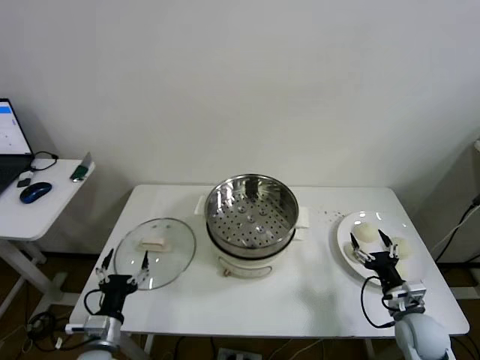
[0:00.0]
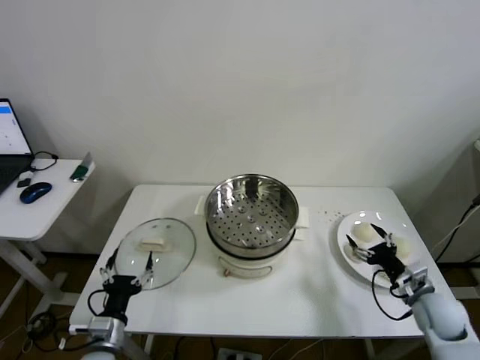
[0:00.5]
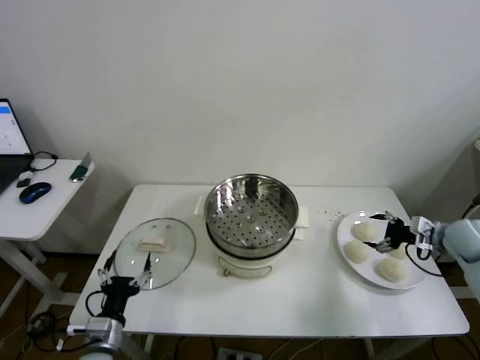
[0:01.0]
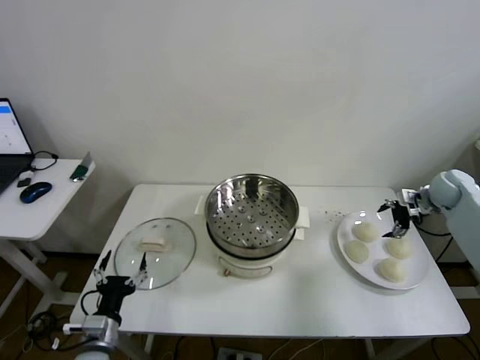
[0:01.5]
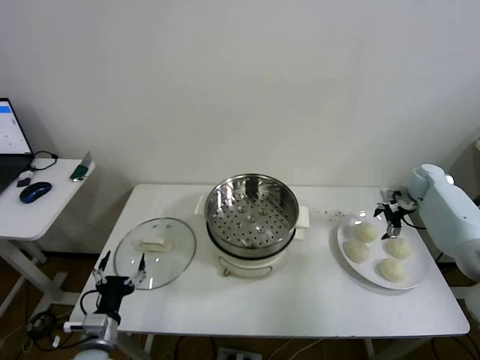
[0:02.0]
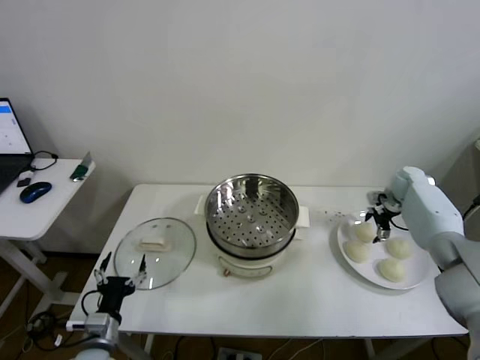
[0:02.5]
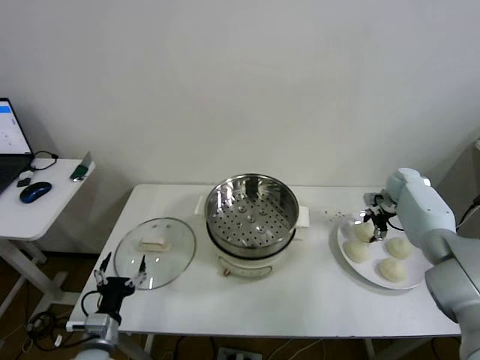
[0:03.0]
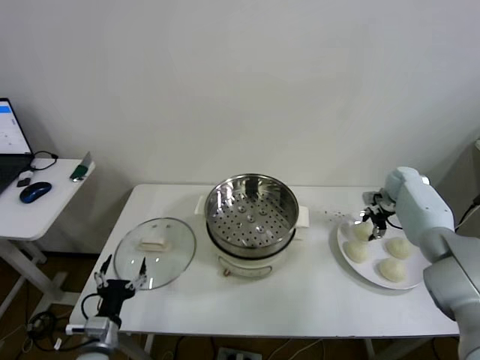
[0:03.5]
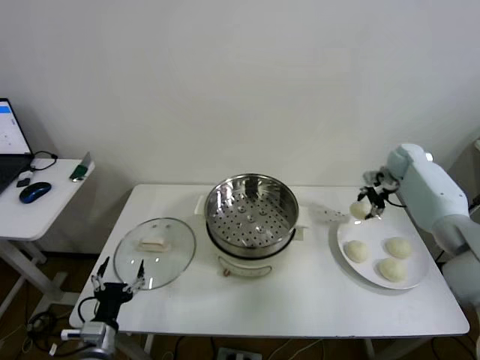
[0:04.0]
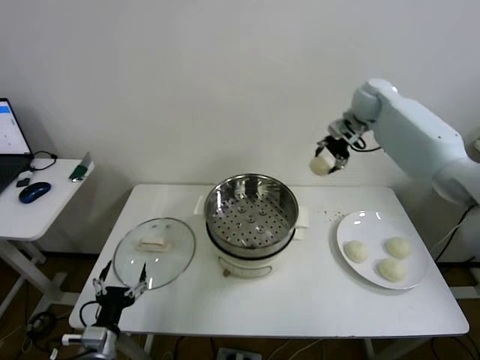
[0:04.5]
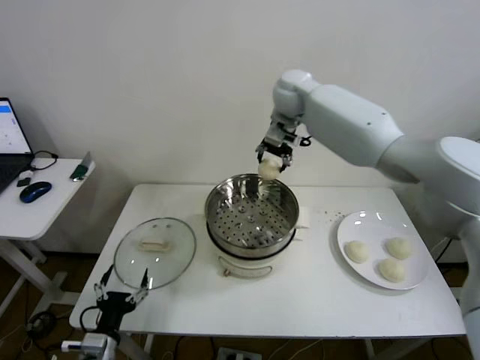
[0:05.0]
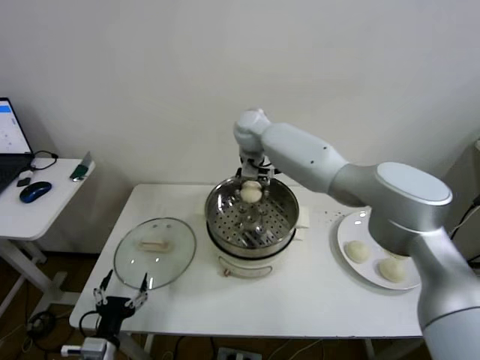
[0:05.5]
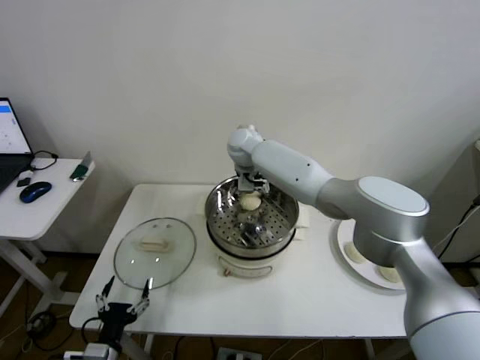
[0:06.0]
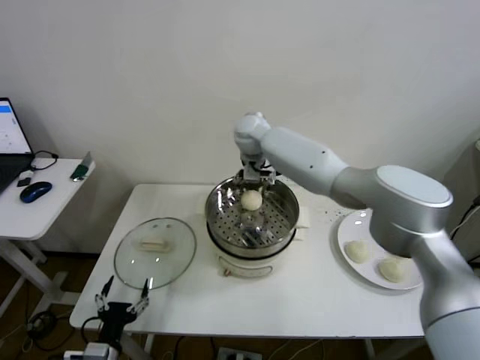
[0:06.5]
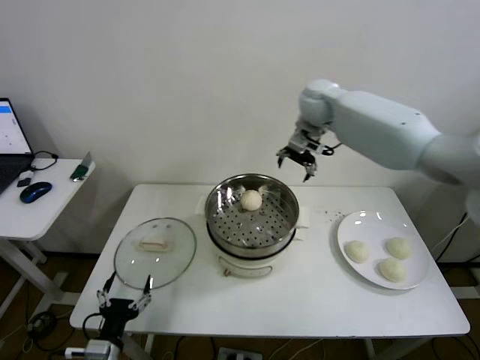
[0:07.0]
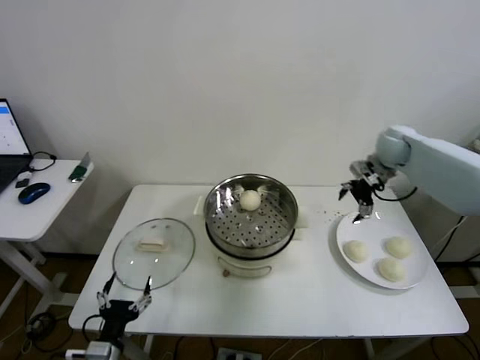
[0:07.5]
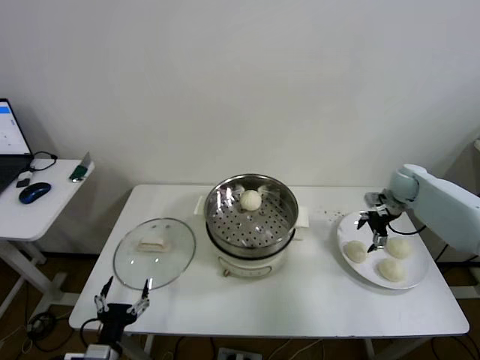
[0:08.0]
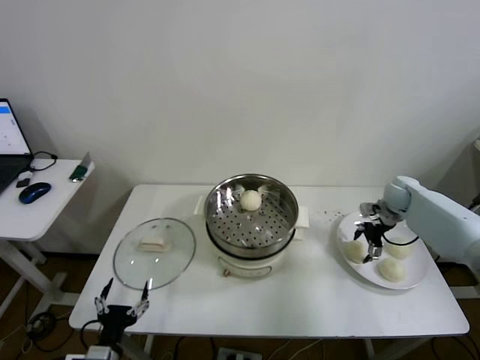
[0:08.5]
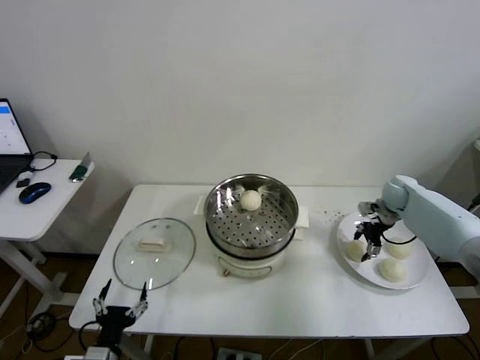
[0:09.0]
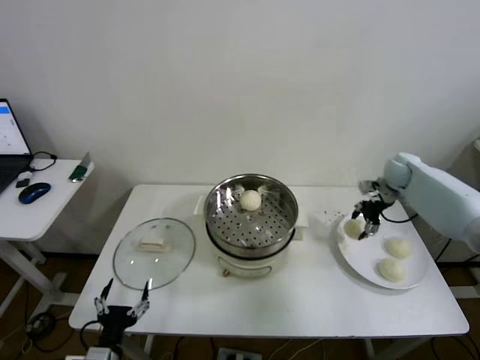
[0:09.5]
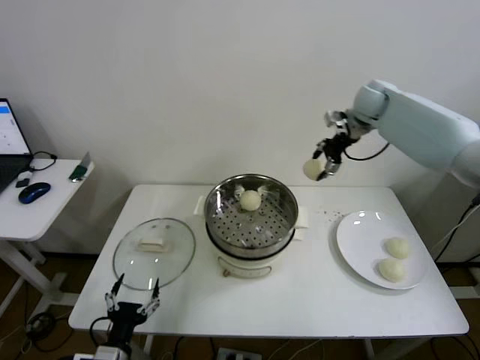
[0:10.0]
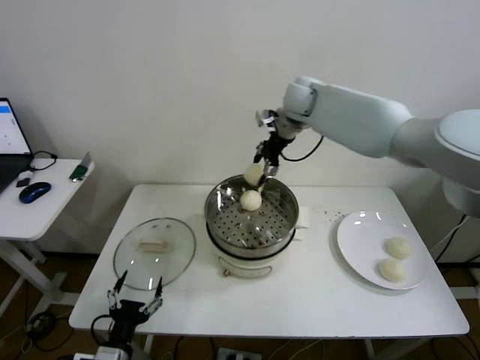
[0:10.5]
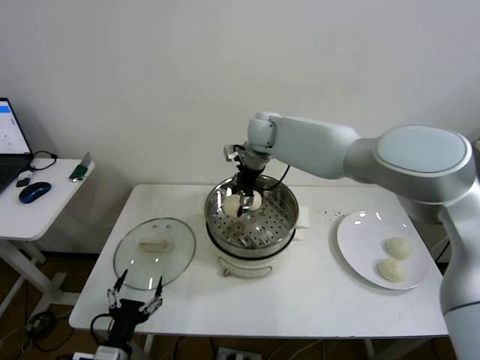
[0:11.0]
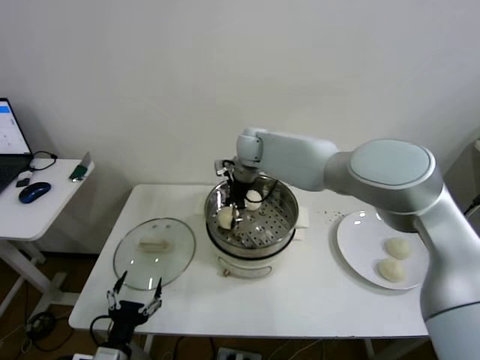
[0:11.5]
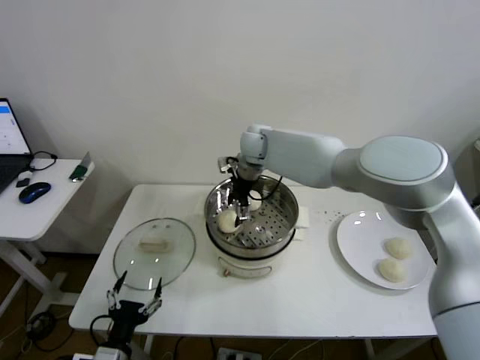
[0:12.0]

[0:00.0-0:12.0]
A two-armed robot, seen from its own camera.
Step, 0.0 to 3.0 s: Grasp the baozi in the plate with right gripper.
Step, 3.5 to 6.0 s: Place the baozi on the steamer with right gripper.
Step, 6.5 to 8.5 s: Grasp the baozi in the plate with right gripper.
Step, 9.0 to 11.5 s: Place the baozi on the steamer with right gripper.
2.0 to 4.0 s: The right gripper moves upward and to the left, roughly 10 cm, and closes up.
4.0 to 6.0 s: The right gripper moves to the left, approximately 40 cm, and opens.
6.0 to 8.0 s: The right gripper is displaced to the right by approximately 40 cm.
8.0 to 10.0 s: The right gripper is displaced upward and to the left by approximately 25 cm, and closes up.
10.0 to 12.0 s: The right gripper shifts about 25 cm to the left and downward, and opens its fingers.

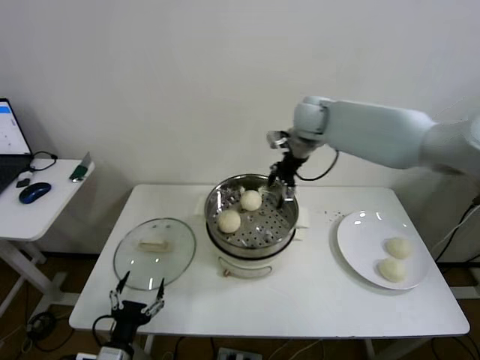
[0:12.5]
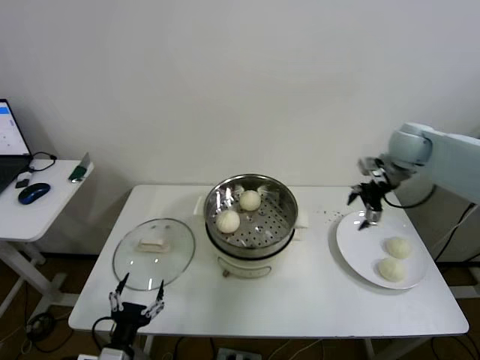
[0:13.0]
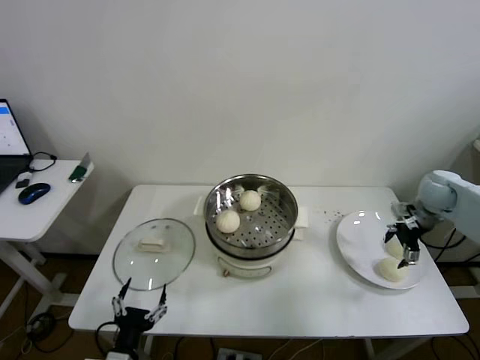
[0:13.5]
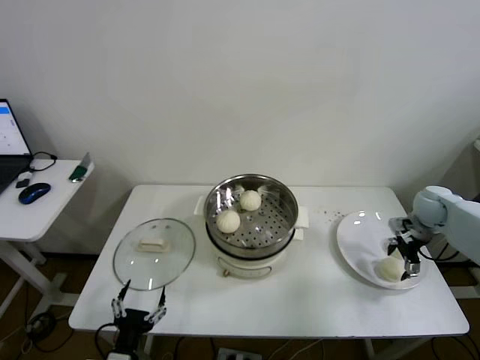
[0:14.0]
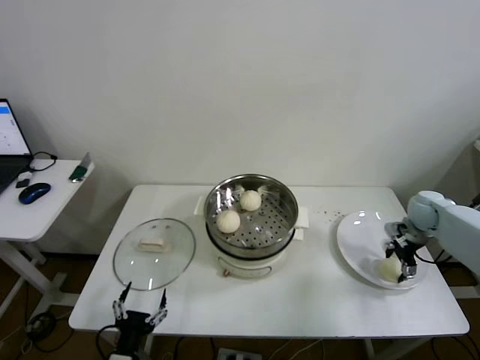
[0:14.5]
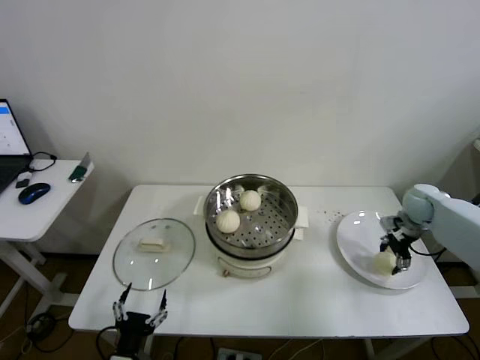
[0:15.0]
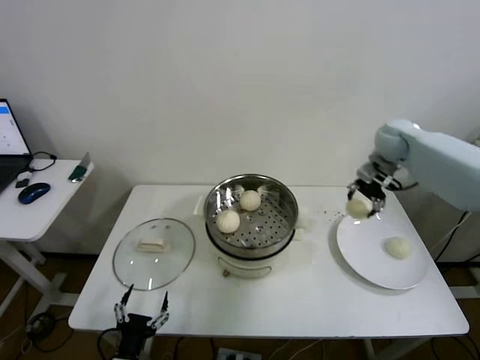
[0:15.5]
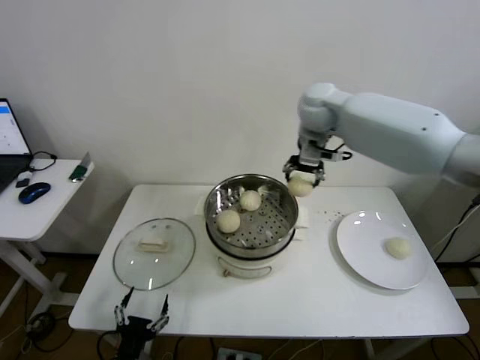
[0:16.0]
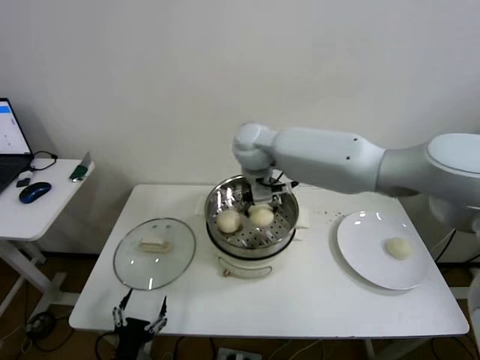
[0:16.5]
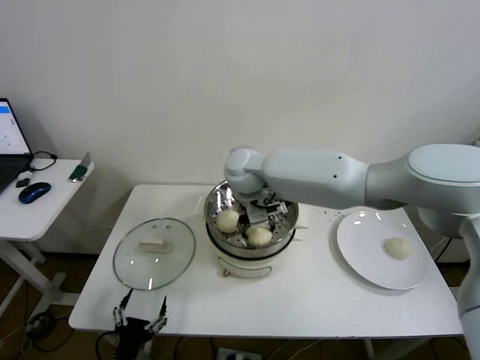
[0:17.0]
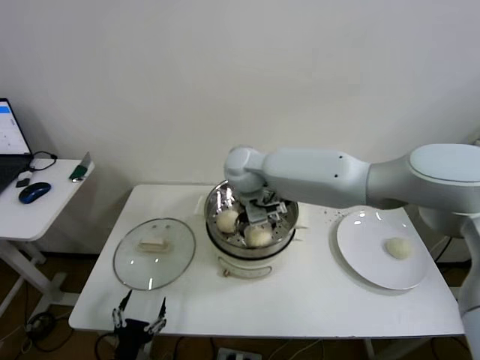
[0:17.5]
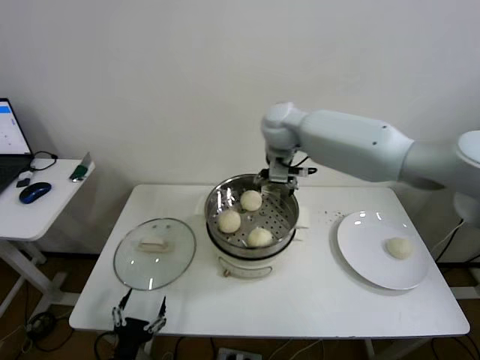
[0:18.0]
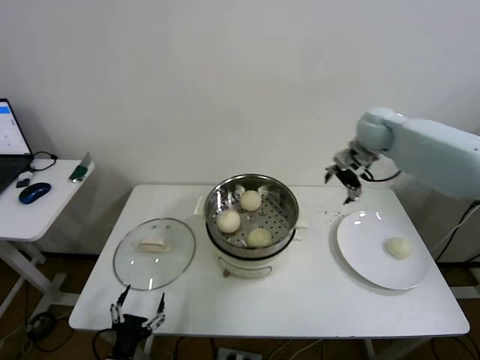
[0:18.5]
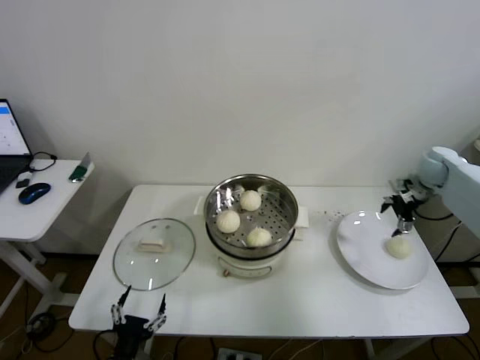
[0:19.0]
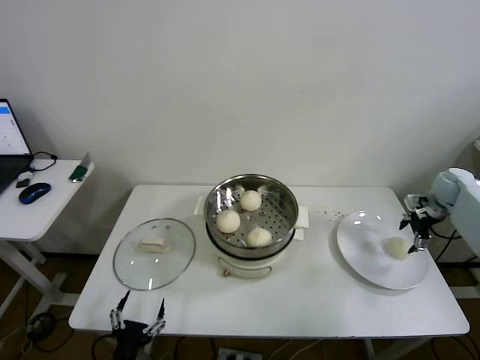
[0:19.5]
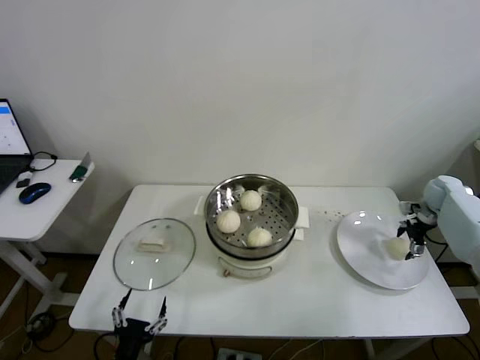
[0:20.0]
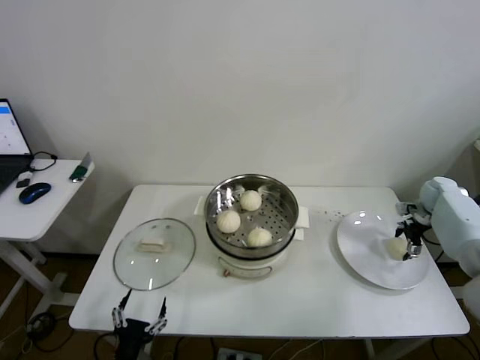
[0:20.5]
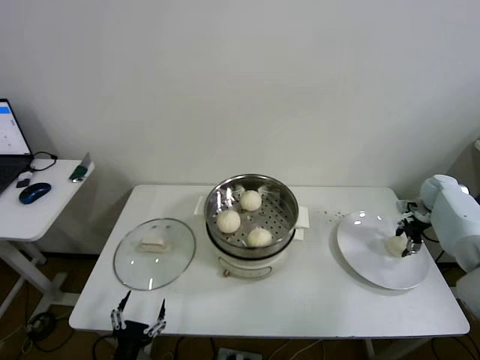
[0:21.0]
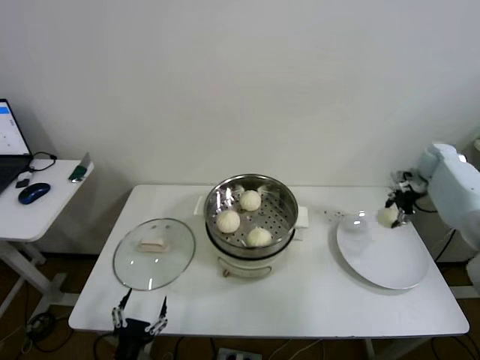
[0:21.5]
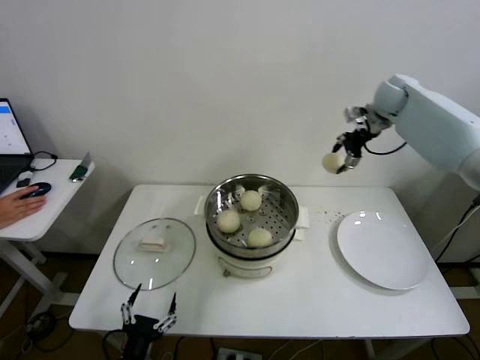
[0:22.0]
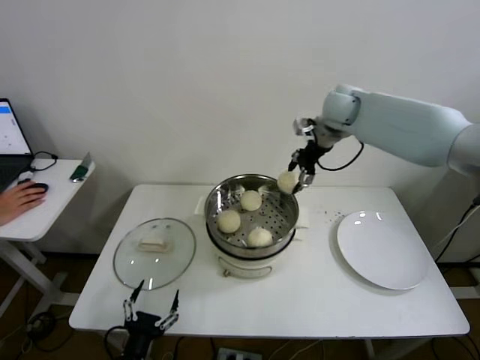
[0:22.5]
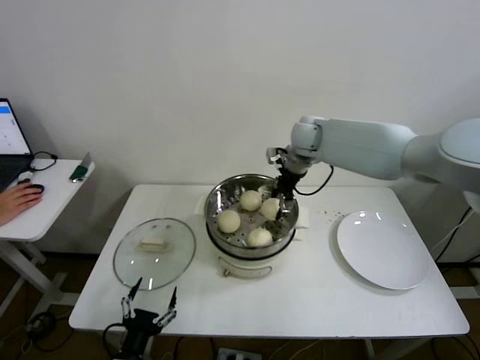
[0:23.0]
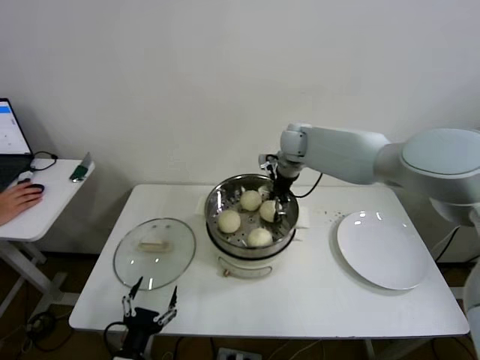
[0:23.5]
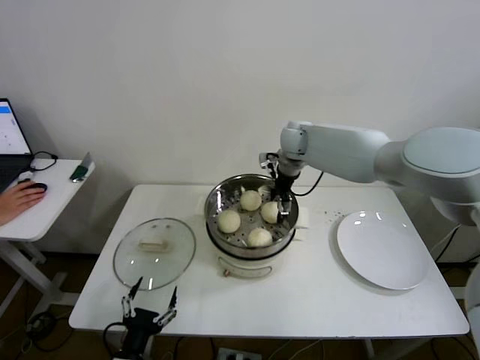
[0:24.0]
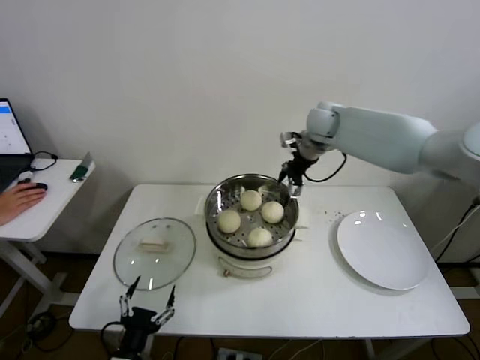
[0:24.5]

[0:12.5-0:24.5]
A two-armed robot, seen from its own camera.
Step, 12.5 to 14.5 s: Grasp the baozi in the plate with right gripper.
Step, 15.0 to 17.0 s: Place the baozi on the steamer with right gripper.
Step, 18.0 to 20.5 s: Grasp the baozi in the plate with right gripper.
Step, 21.0 to 23.5 s: Place the baozi on the steamer with right gripper.
12.5 to 14.5 s: The right gripper goes about 35 cm to the right and downward, and closes up.
14.5 to 16.5 s: The right gripper shifts about 50 cm to the left and upward.
16.5 to 18.5 s: The right gripper heads to the right, covering about 30 cm, and opens up.
18.5 to 20.5 s: The right gripper shifts roughly 30 cm to the right and downward.
20.5 to 22.5 s: The right gripper goes some 40 cm to the left and upward, and closes its fingers.
22.5 to 24.5 s: The right gripper opens.

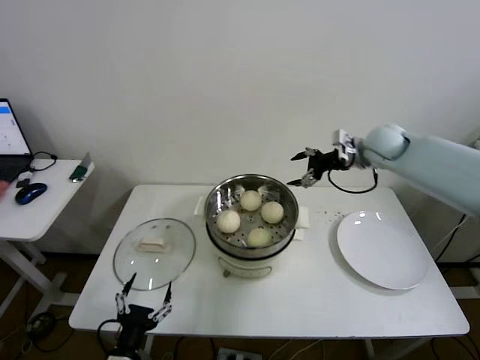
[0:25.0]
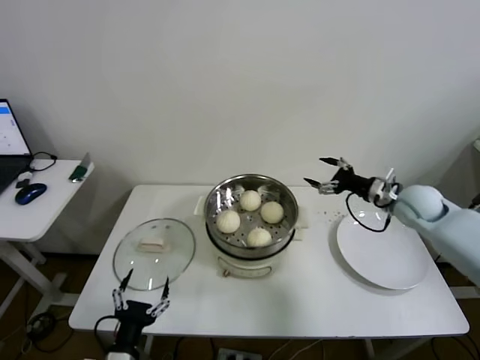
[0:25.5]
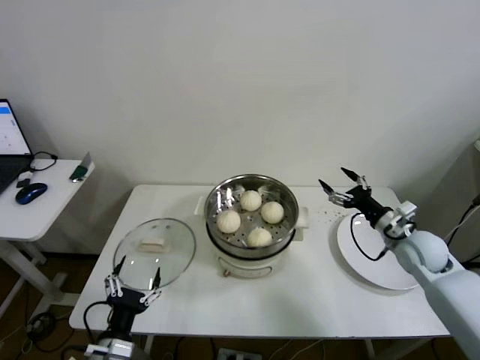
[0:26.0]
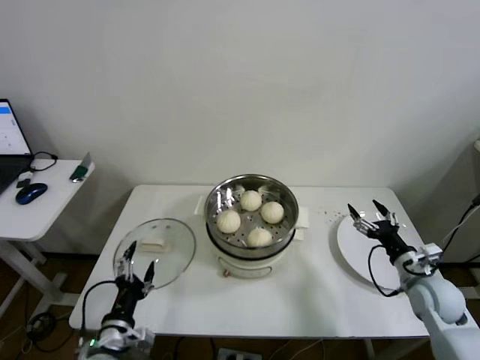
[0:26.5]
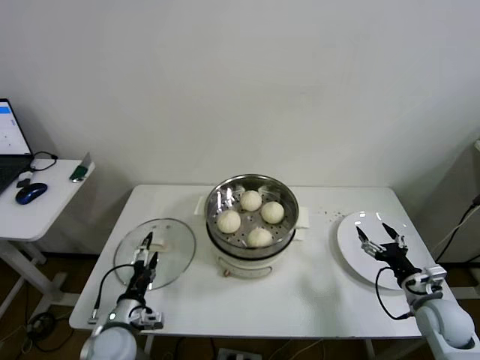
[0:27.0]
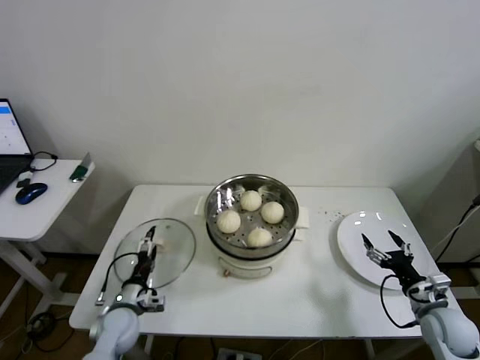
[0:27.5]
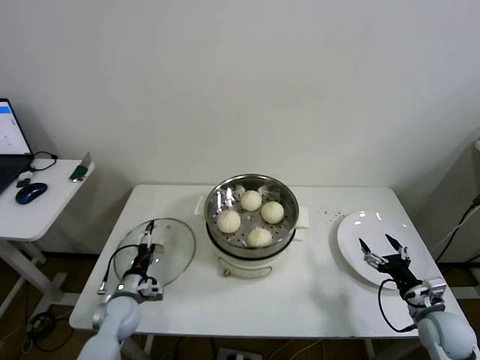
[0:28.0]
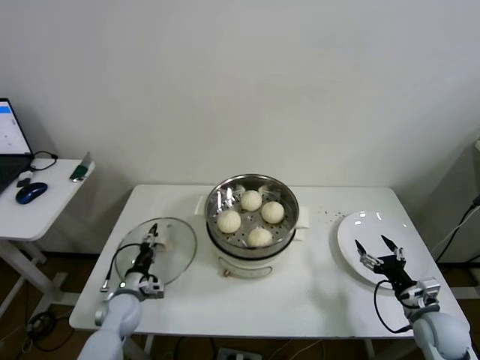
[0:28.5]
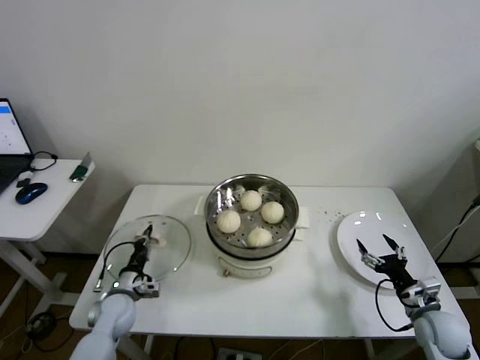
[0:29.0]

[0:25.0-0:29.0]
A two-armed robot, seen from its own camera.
Step, 25.0 to 29.0 s: Grasp the pot lid with left gripper.
25.0 to 27.0 s: The right gripper is displaced backward and downward by some 40 cm. The left gripper heads forward, covering approximately 10 cm.
27.0 to 29.0 s: The left gripper goes some 10 cm forward, and closes up.
